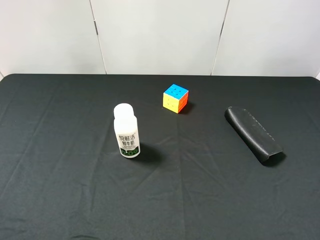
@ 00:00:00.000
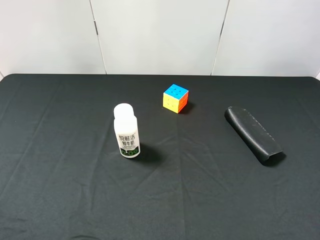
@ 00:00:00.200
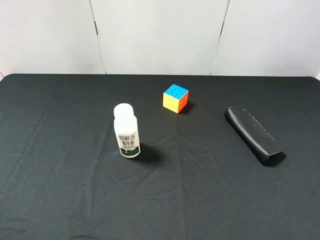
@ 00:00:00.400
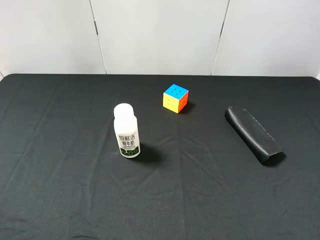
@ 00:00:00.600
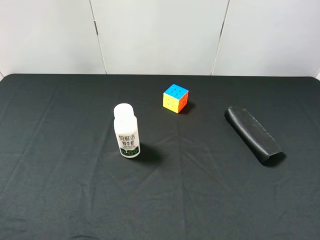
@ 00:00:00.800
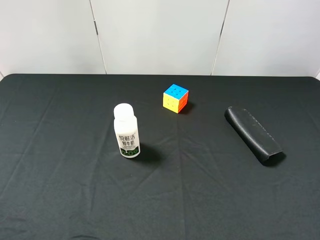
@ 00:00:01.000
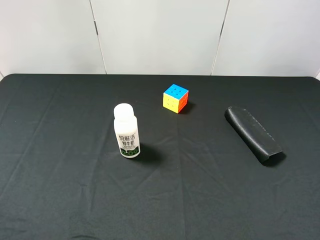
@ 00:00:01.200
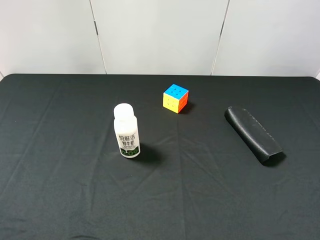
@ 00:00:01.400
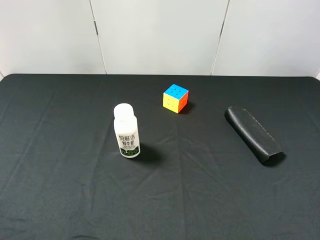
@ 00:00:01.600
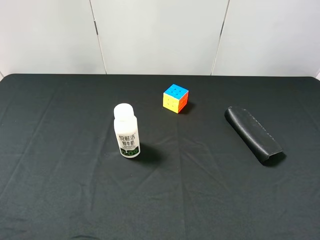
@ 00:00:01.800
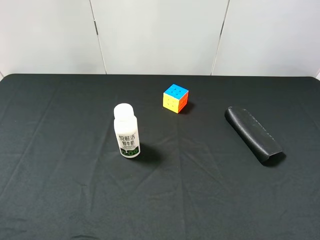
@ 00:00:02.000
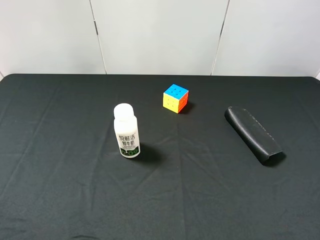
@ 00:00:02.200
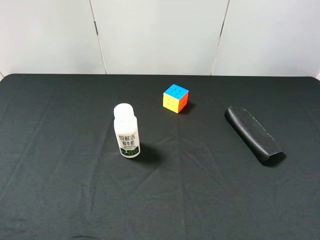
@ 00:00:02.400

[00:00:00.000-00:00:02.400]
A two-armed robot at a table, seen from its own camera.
Task of the whole recording: use the left gripper to pick up the item and transfer it from the left gripper to the right gripper.
00:00:01.200 to 00:00:02.400: The two grippers keep their place.
